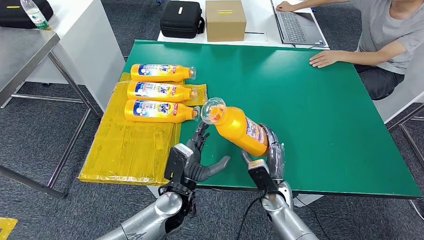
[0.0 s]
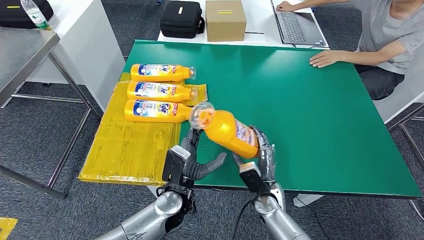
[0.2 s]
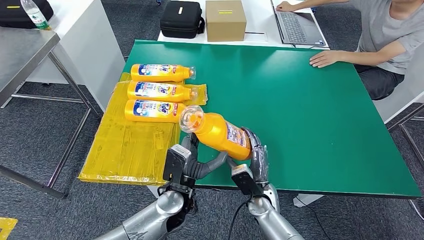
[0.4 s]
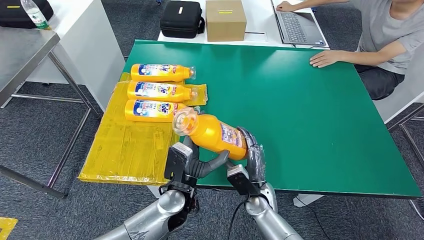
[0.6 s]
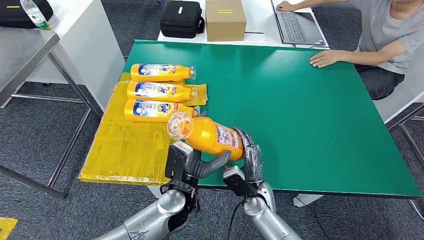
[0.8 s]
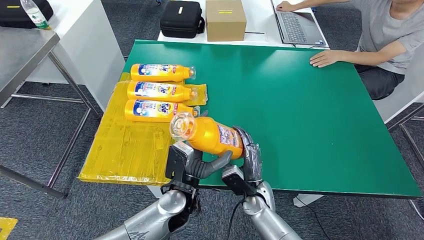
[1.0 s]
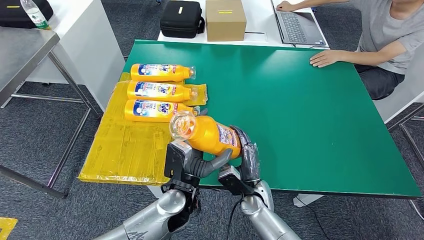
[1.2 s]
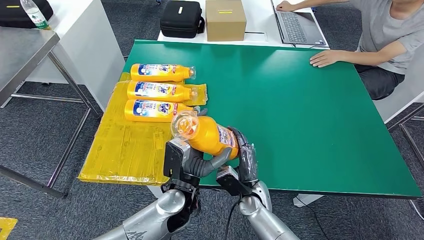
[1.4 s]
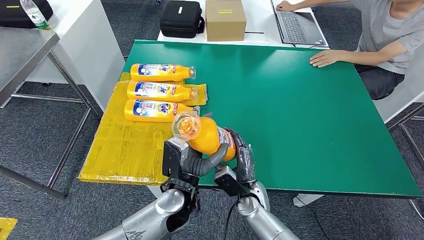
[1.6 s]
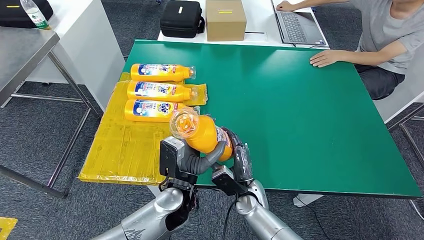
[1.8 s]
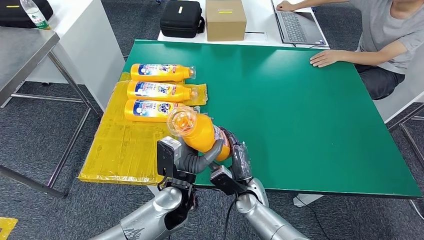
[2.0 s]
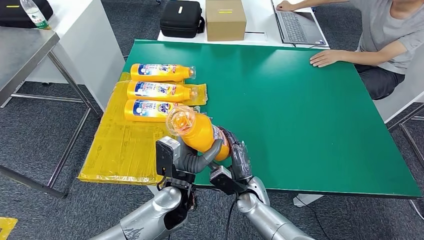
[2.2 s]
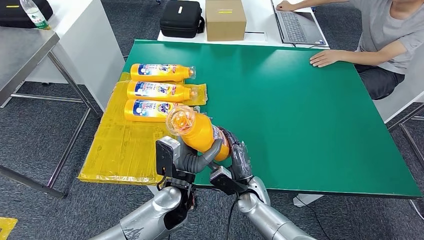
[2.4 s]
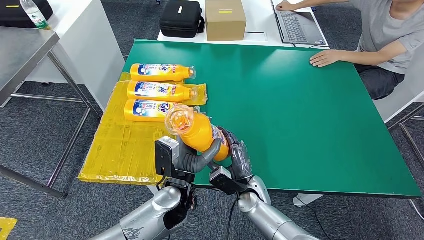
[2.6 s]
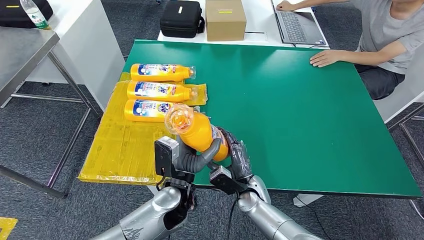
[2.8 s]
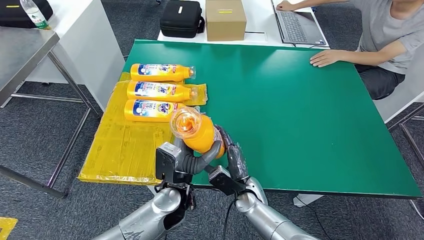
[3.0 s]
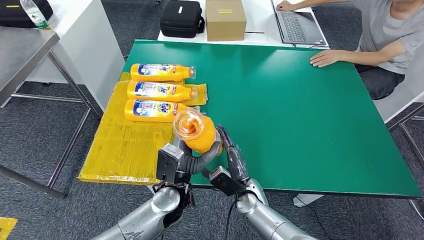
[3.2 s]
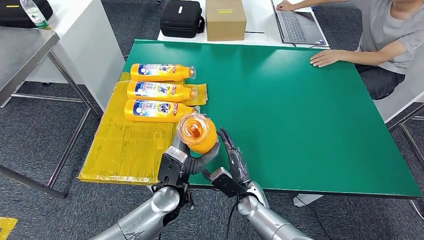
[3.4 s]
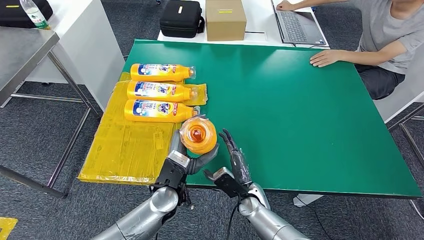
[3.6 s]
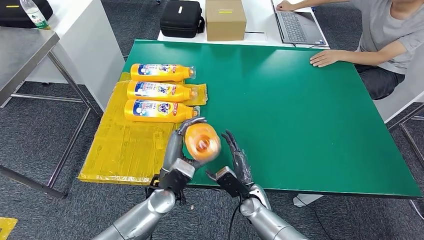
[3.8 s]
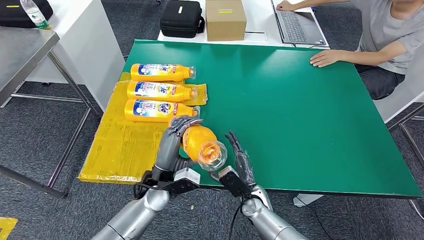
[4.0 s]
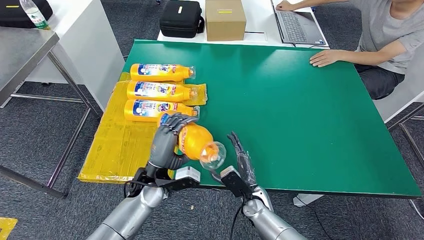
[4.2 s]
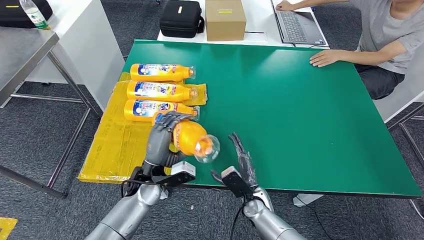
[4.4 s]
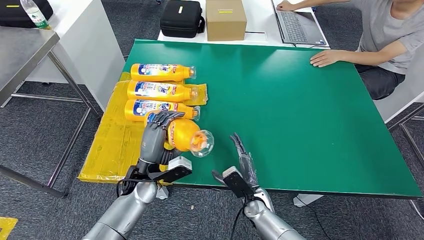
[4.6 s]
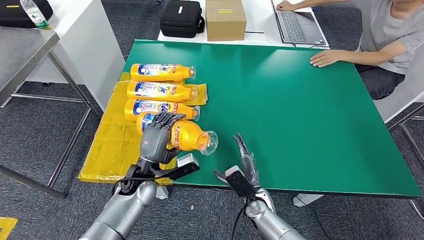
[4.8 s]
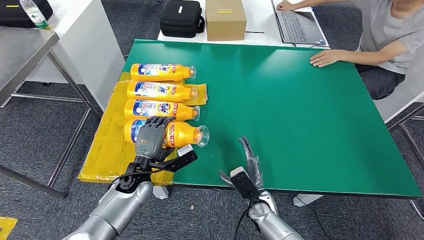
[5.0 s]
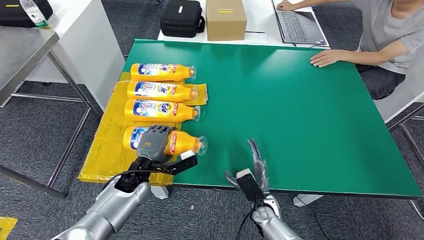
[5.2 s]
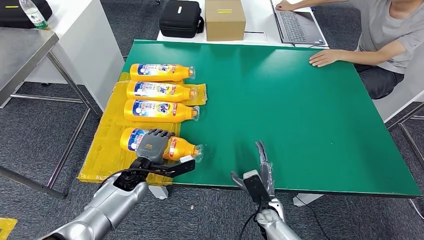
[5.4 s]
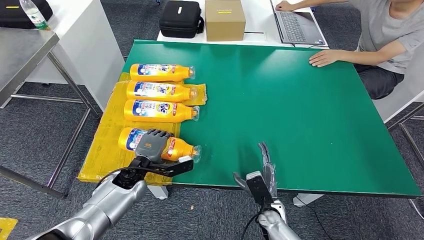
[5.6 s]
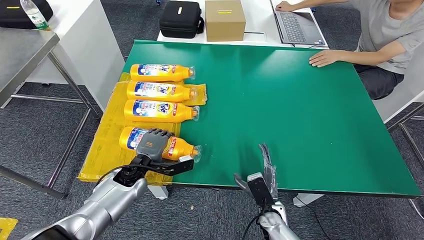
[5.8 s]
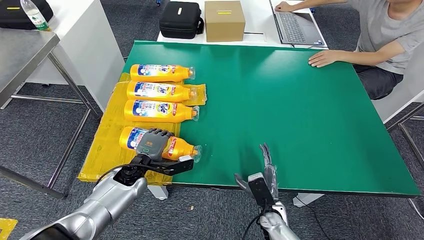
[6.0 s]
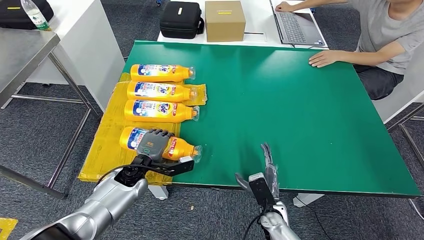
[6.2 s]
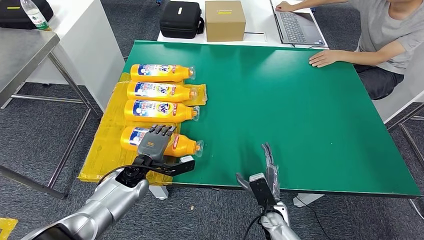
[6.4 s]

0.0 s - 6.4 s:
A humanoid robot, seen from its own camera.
Step, 1.0 s - 6.4 s: Flip the fast-moving consumer goods bottle to the front side.
0.0 s - 1.6 s: The right hand travels to the left by approximately 5 cm.
1.6 s - 3.2 s: The hands make only small movements.
3.2 s - 4.8 s: The left hand travels to the left by some 10 cm.
4.8 s - 6.4 s: The right hand changes place by some 5 cm.
